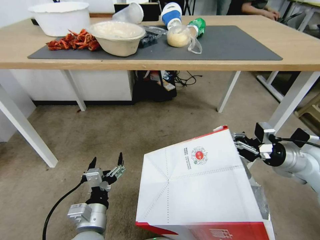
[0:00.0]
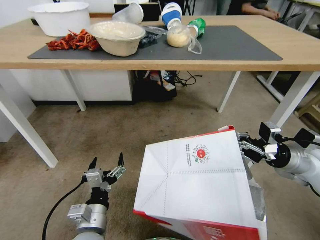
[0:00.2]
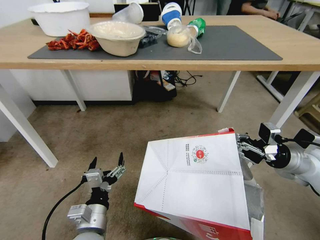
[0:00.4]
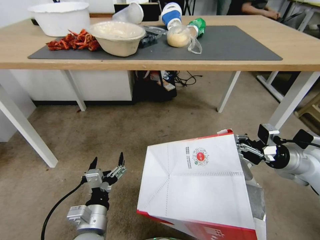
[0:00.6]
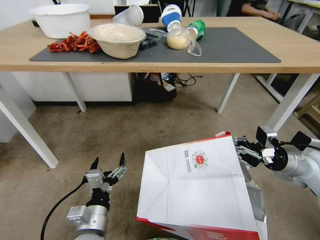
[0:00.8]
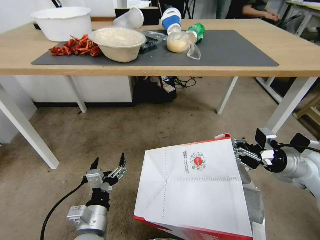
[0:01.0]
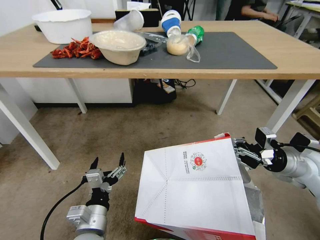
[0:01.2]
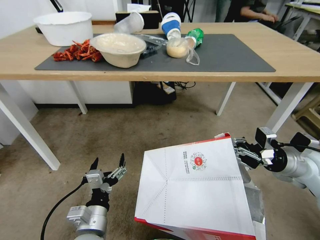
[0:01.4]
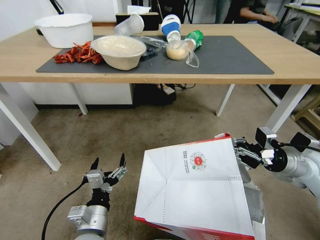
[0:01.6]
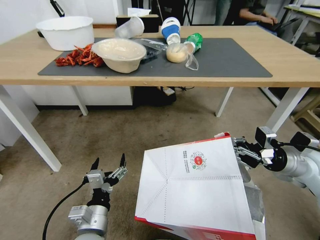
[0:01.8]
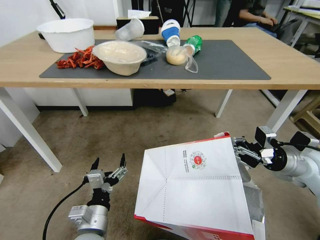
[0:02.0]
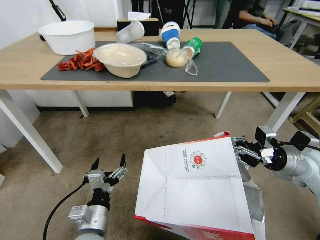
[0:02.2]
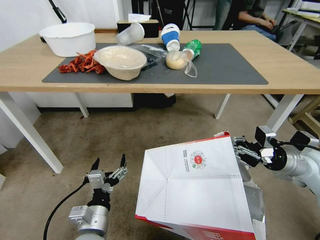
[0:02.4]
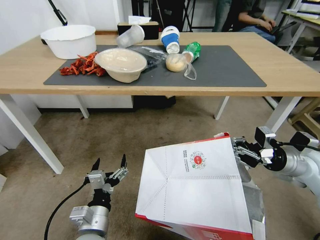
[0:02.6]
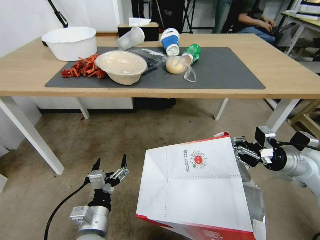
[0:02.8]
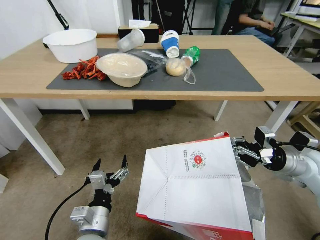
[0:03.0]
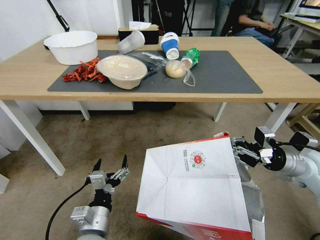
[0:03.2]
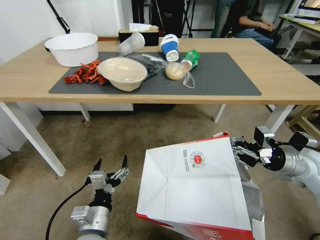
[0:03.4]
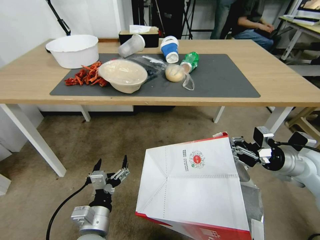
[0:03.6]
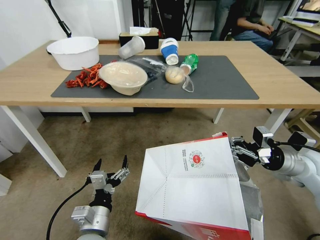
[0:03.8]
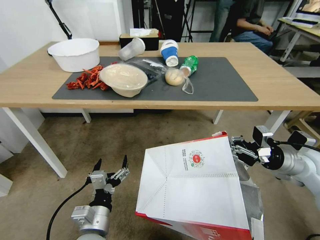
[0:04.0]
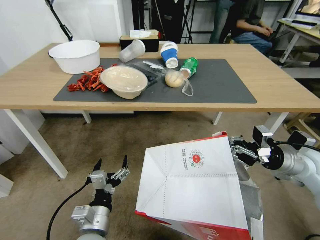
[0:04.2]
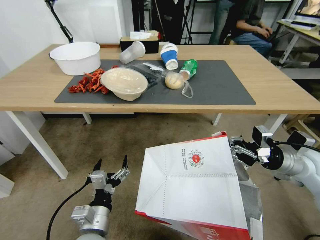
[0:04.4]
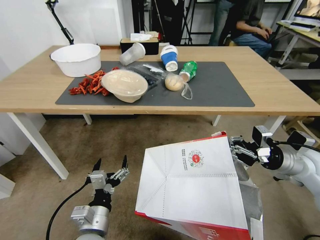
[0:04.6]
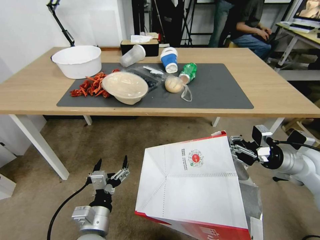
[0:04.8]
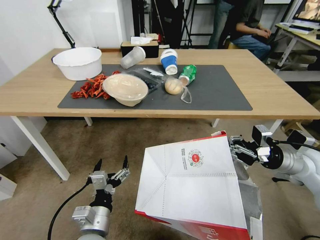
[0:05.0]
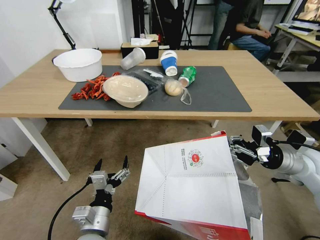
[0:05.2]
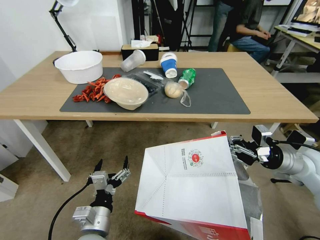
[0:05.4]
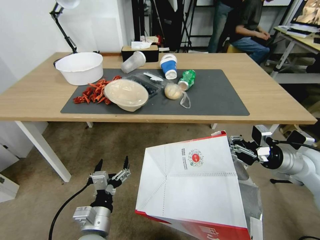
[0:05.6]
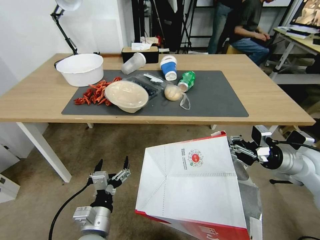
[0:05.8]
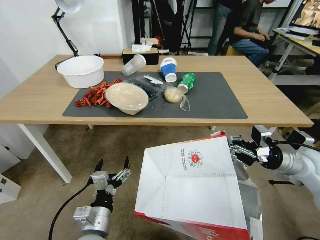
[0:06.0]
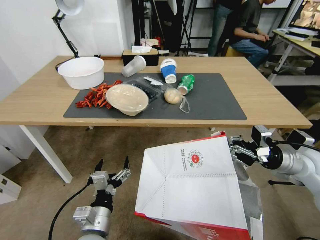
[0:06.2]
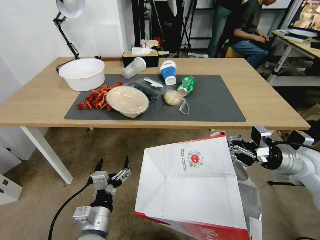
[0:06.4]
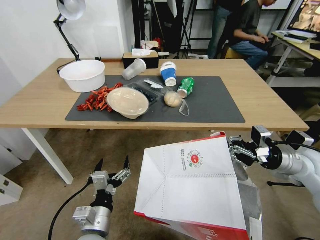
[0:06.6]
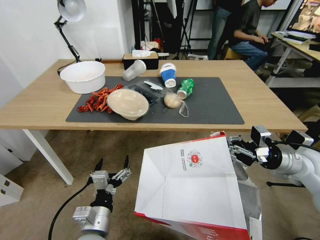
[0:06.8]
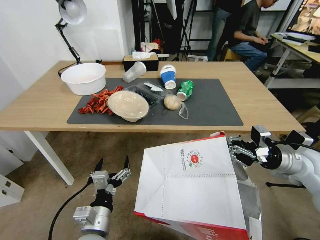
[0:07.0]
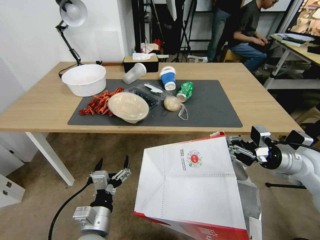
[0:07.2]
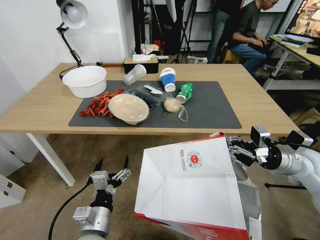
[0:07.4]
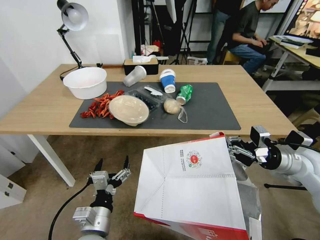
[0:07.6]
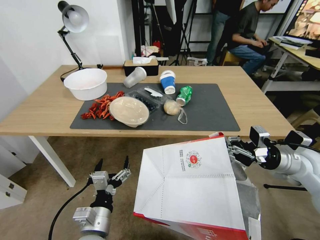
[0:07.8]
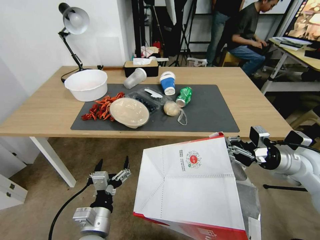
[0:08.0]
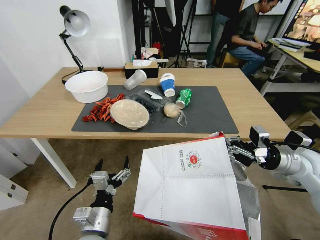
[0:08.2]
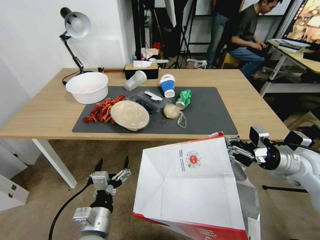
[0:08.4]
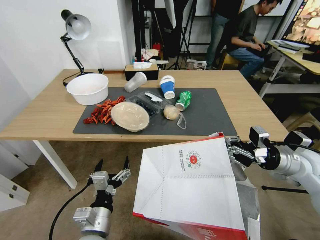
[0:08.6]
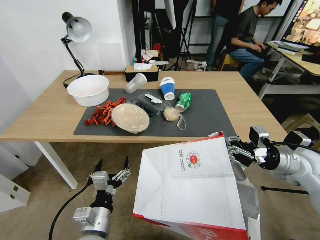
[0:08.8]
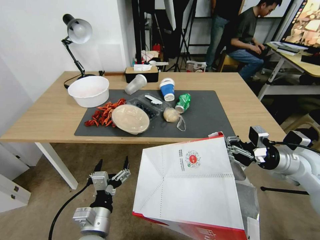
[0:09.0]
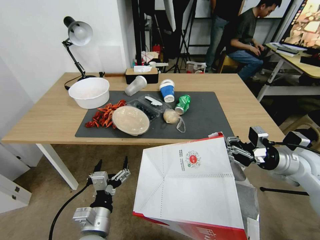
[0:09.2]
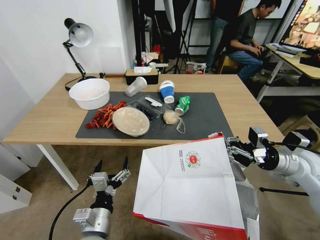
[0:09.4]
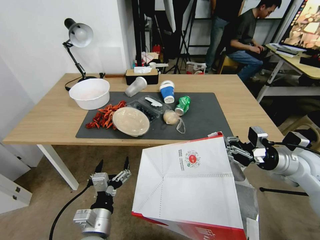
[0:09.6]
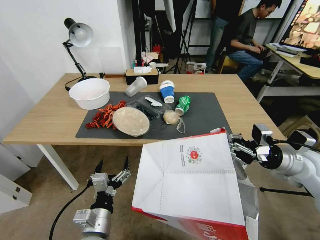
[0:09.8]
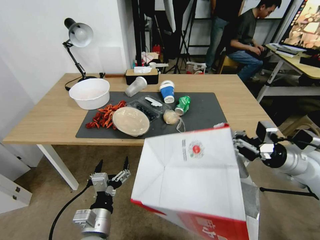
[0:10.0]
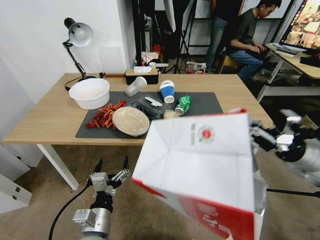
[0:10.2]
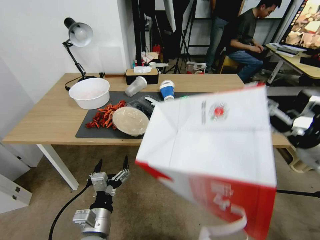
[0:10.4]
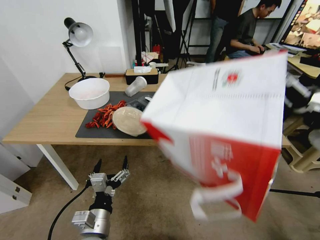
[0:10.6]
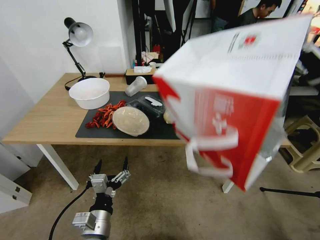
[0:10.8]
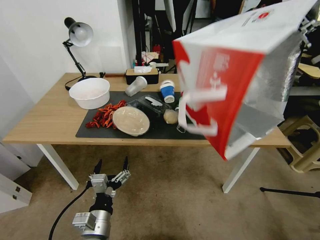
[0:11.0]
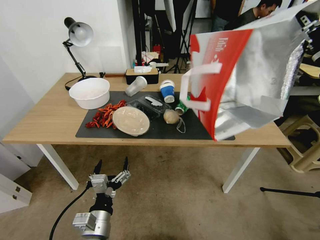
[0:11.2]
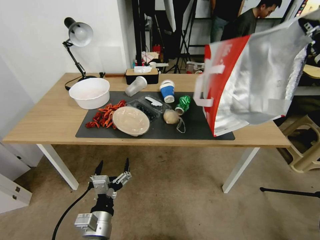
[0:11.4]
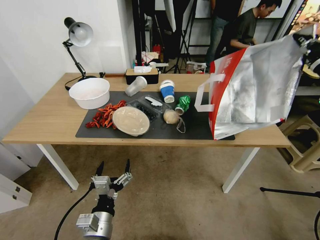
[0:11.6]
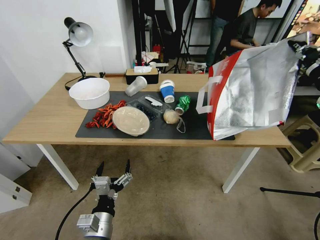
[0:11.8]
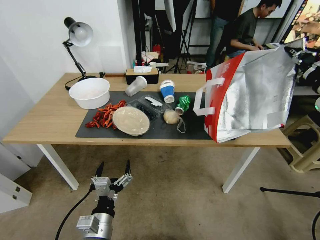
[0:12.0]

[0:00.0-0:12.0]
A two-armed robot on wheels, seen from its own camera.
Task of the whole recording: Pick up the food delivery bag from the floor and place it on the table.
0:09.0 to 0:10.4: The right gripper heads upward, covering about 10 cm.
0:10.4 to 0:12.0: The right gripper moves upward and forward, approximately 10 cm.

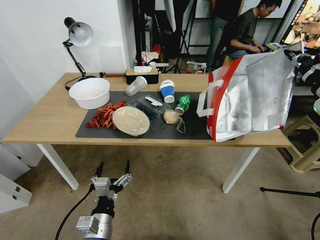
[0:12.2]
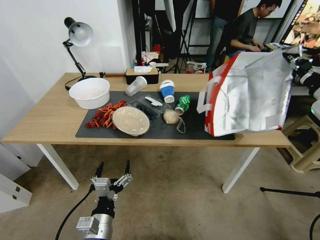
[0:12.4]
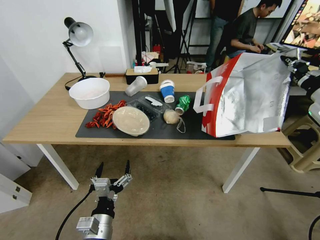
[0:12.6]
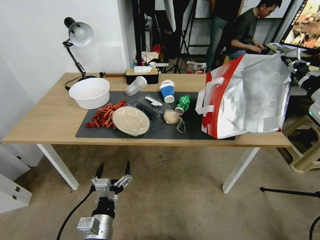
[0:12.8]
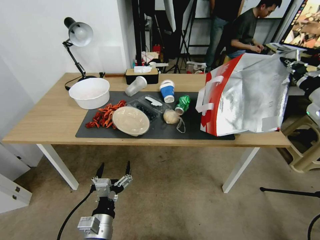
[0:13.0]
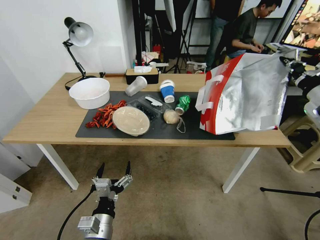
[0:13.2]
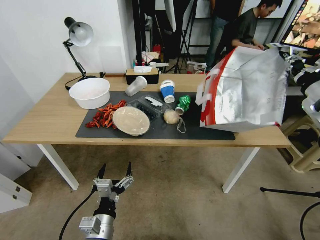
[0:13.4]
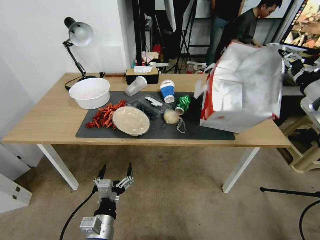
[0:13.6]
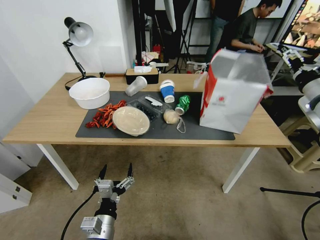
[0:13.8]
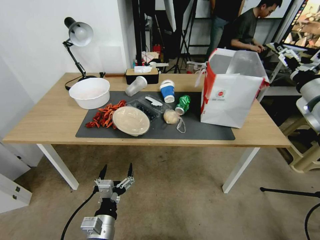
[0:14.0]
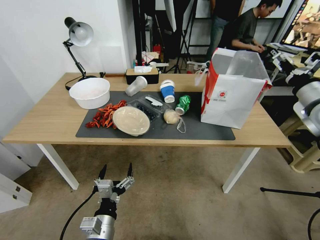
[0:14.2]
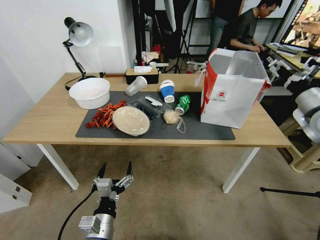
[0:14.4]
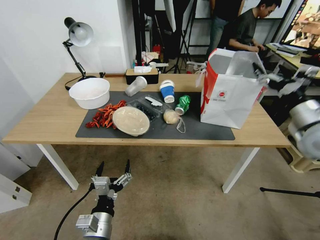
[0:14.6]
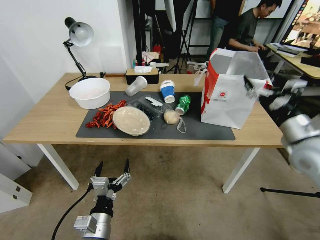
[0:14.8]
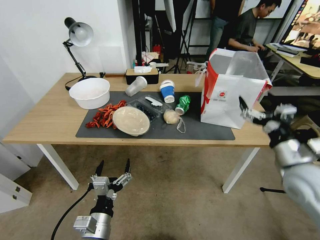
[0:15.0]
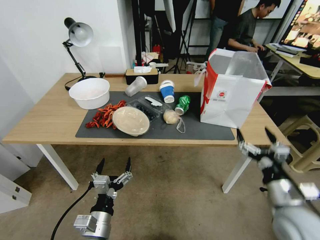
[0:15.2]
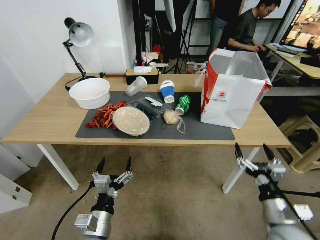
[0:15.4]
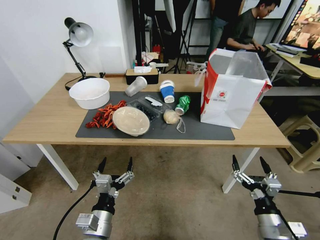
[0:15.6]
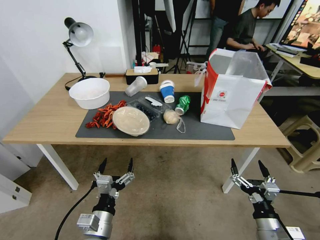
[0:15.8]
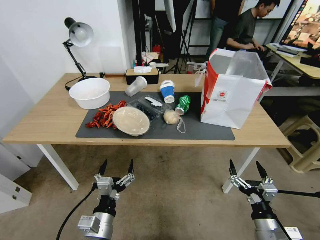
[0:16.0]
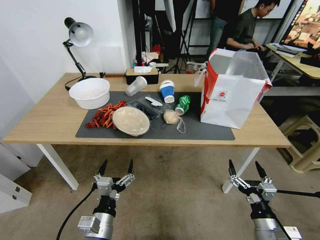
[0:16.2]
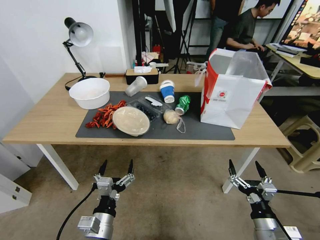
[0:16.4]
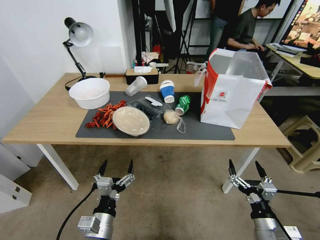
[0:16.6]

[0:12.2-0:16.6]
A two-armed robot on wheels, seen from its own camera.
Task of the whole recording: Pick up the food delivery bag from the floor and place it on the table.
0:12.2 to 0:13.6: The right gripper opens up.
0:13.6 to 0:15.2: The right gripper shifts approximately 30 cm downward, backward and to the left, and opens its fingers.
0:15.2 to 0:16.6: The right gripper shifts approximately 15 cm downward and backward.

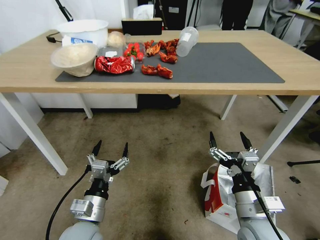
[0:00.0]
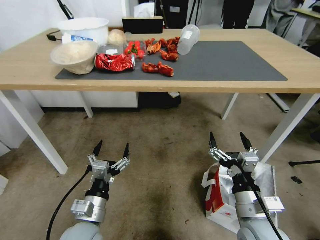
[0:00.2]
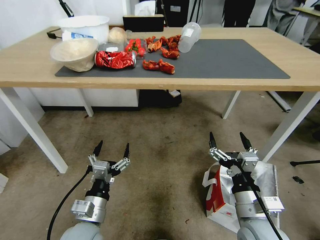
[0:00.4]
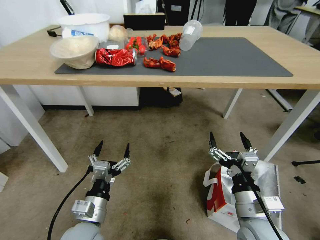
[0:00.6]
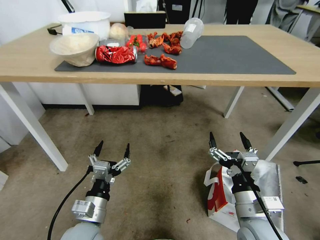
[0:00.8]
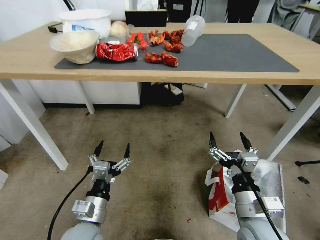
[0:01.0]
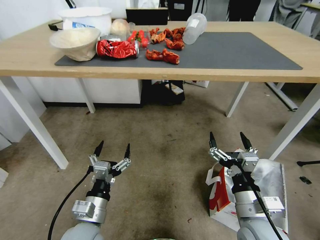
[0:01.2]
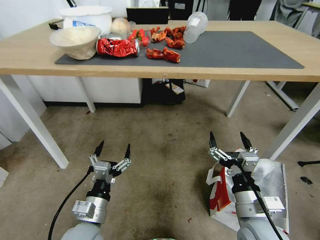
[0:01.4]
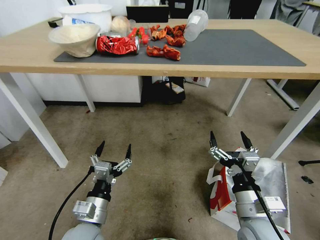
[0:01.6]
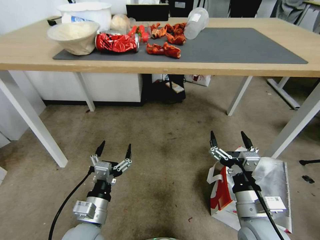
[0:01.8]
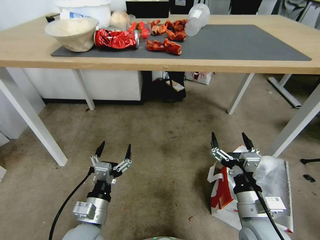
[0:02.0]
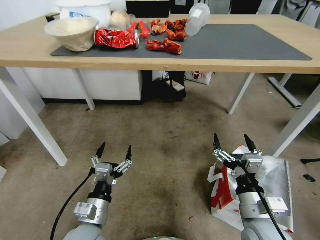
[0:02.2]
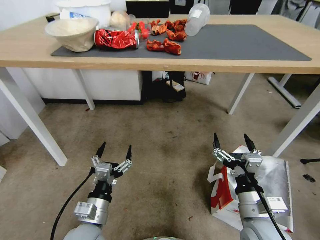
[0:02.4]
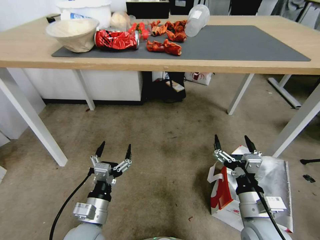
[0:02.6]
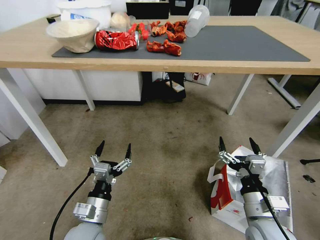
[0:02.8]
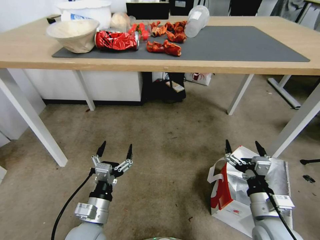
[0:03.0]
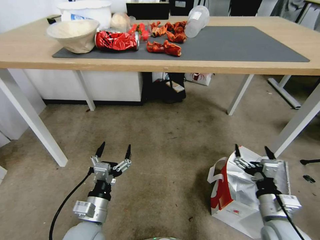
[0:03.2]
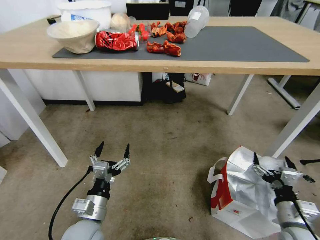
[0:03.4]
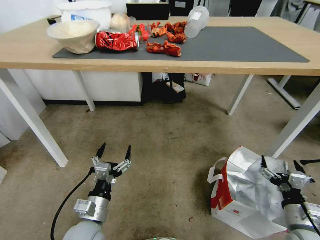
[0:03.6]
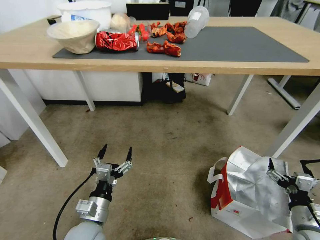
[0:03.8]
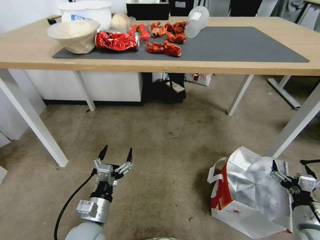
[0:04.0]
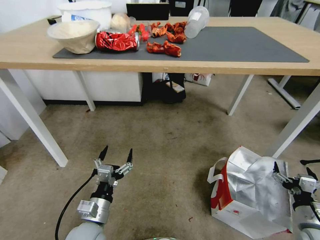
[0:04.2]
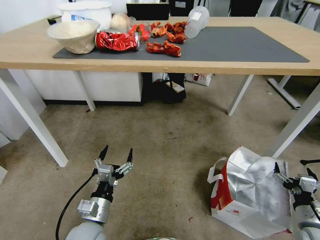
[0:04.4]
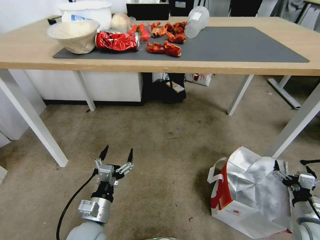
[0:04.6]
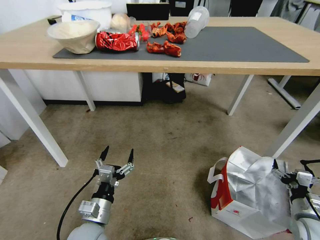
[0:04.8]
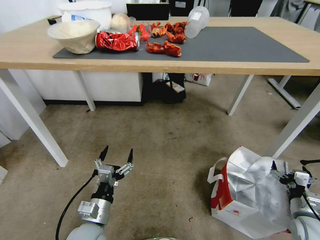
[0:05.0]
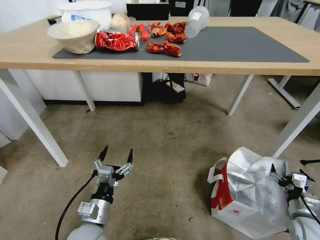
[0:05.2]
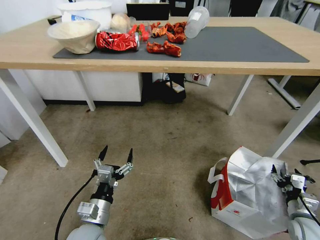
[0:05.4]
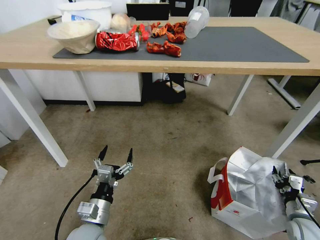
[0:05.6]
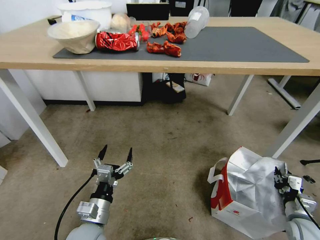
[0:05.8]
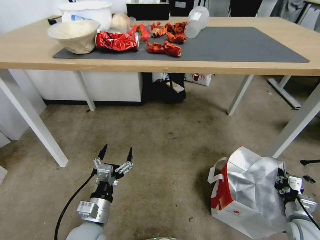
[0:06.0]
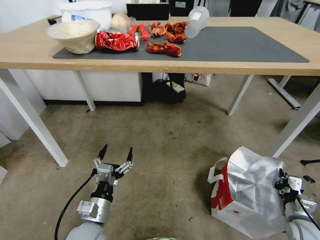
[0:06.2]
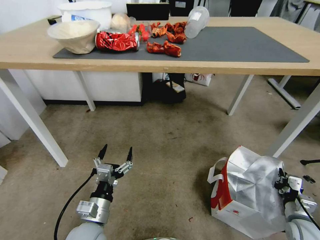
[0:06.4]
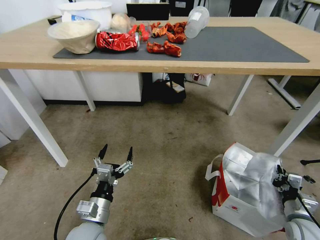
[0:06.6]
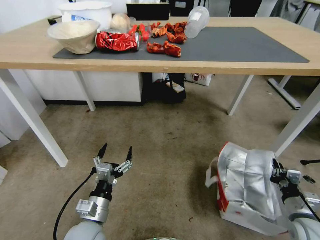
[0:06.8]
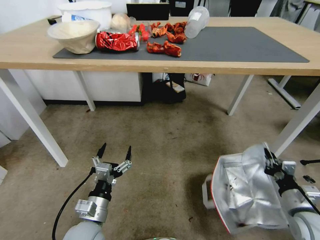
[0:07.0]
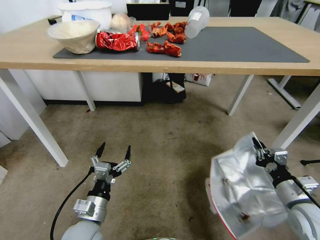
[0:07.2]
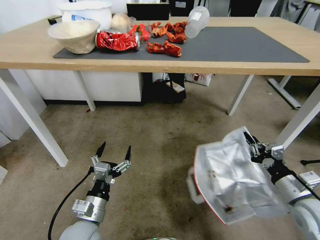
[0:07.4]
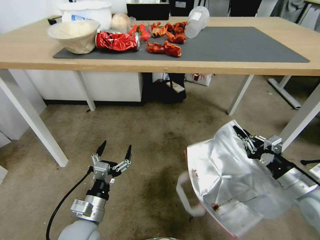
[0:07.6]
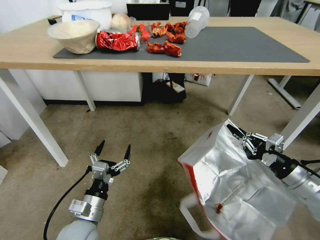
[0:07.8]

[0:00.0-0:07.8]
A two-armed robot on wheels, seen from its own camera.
Task of the whole recording: Pick up the food delivery bag from the floor and place it on the table.
0:01.6 to 0:03.2: The right gripper goes about 10 cm to the right and downward.
0:03.2 to 0:04.6: The right gripper moves to the right and downward, about 15 cm.
0:04.6 to 0:06.2: The right gripper closes its fingers.
0:06.2 to 0:07.8: The right gripper is displaced upward by about 20 cm.
